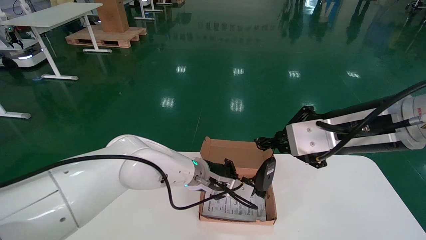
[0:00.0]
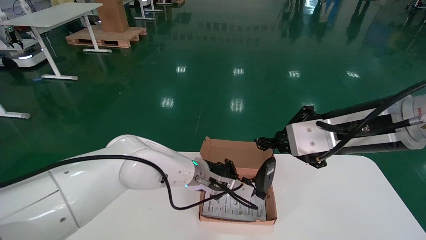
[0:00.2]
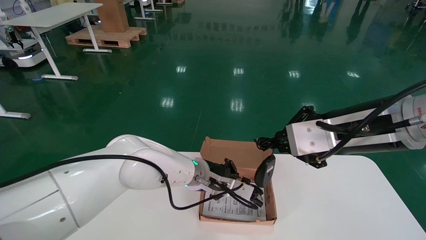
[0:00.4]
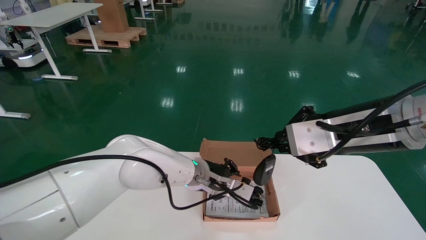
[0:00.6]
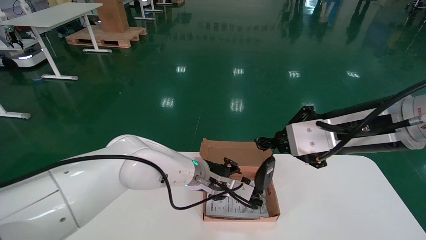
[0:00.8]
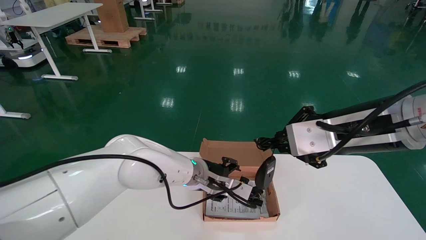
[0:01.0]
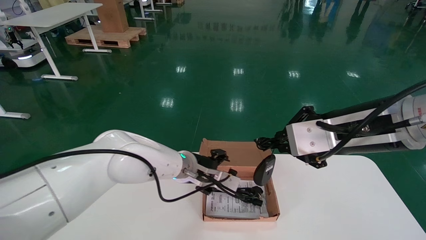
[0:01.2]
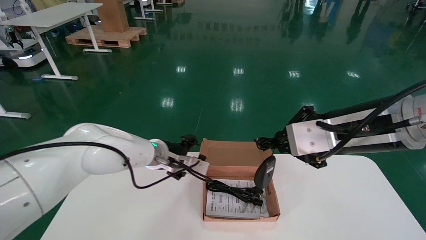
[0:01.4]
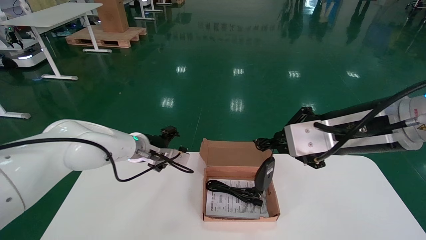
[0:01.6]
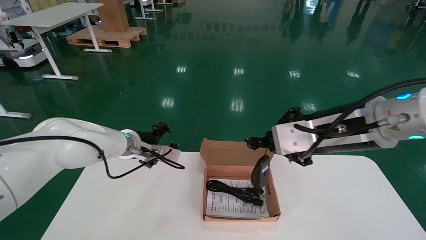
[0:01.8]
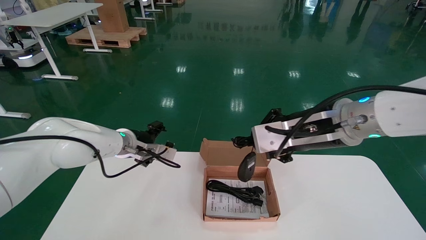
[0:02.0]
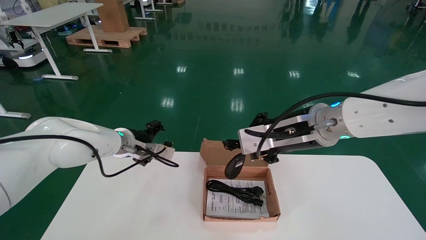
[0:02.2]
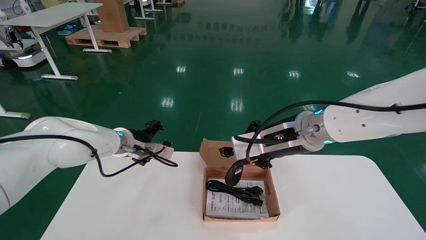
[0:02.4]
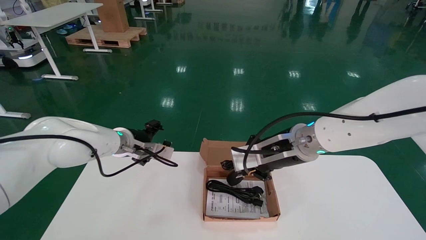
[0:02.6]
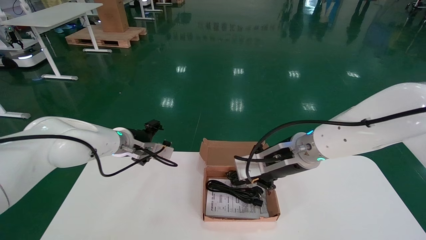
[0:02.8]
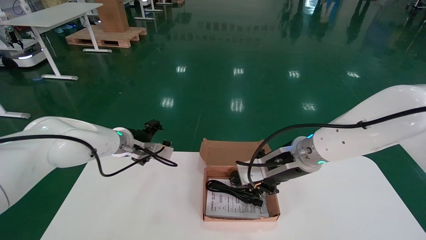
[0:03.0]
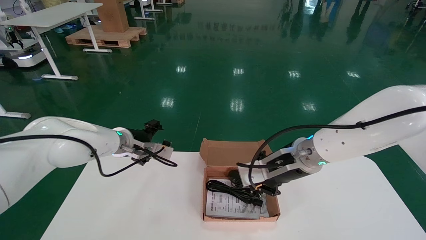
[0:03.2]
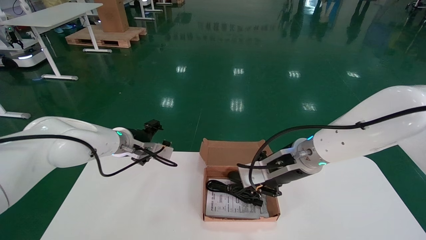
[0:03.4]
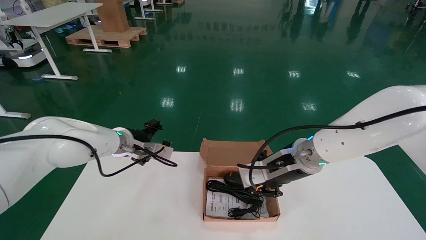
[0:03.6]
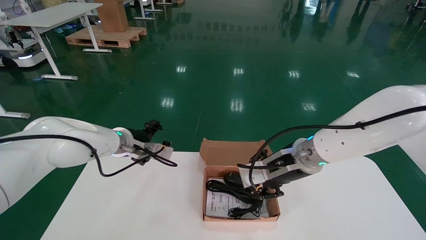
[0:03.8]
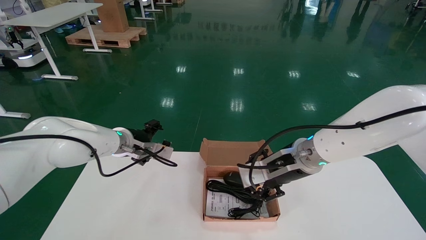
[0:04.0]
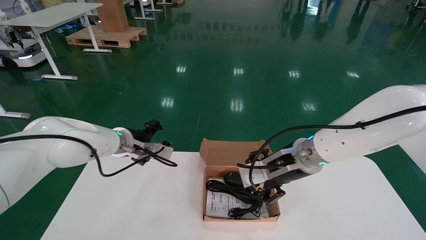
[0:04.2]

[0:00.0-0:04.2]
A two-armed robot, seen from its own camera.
Step, 0:00.0 to 0:04.2: Place the mouse and power cord into the box.
0:00.0 to 0:01.4: Both grippers stay put.
0:01.4 to 0:02.8: The left gripper shifts approximately 20 cm to the left, and opens. Meanwhile the right gripper changes place by roughly 5 cm.
0:02.8 to 0:04.2: The right gripper moves downward and forward, some 15 cm.
